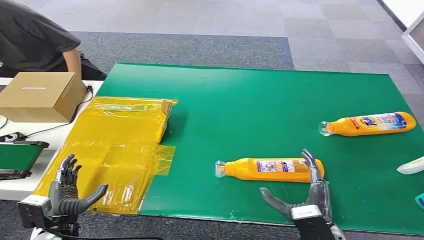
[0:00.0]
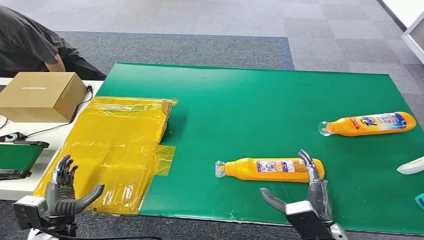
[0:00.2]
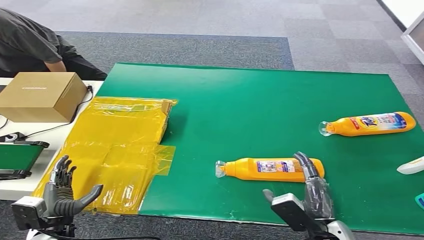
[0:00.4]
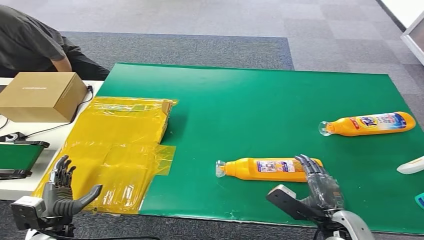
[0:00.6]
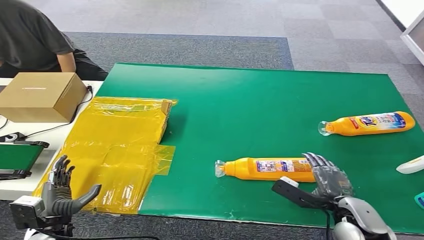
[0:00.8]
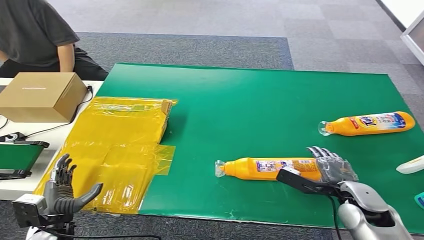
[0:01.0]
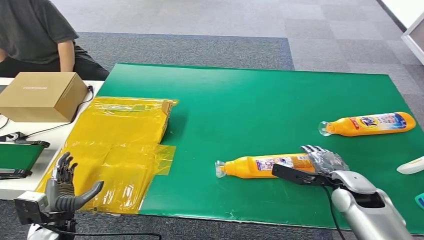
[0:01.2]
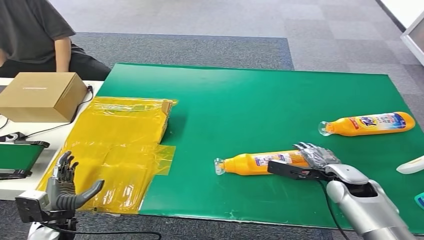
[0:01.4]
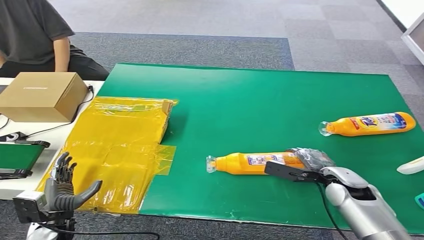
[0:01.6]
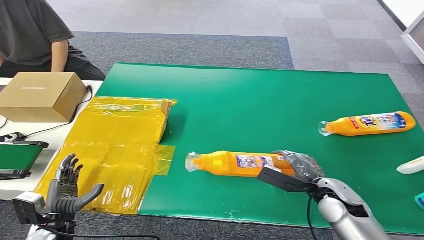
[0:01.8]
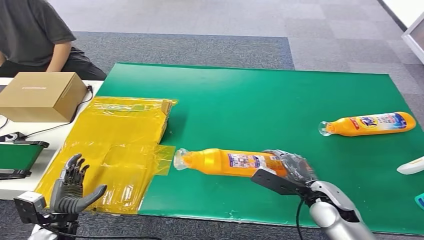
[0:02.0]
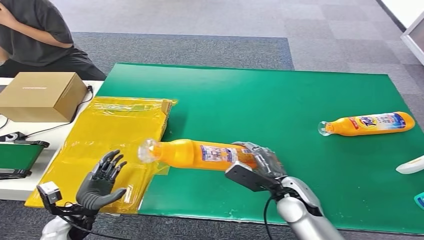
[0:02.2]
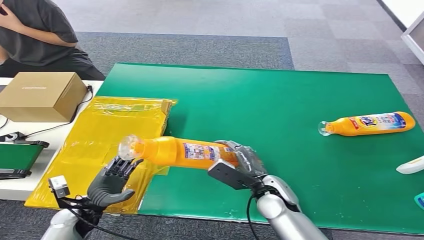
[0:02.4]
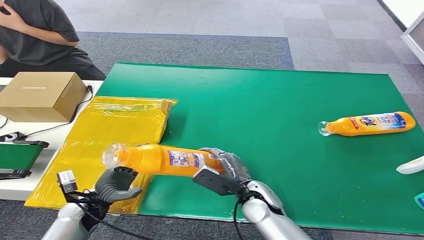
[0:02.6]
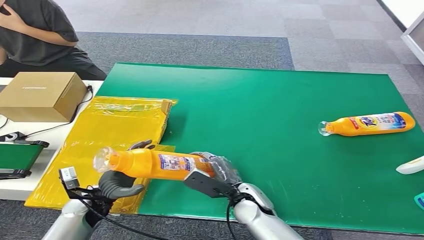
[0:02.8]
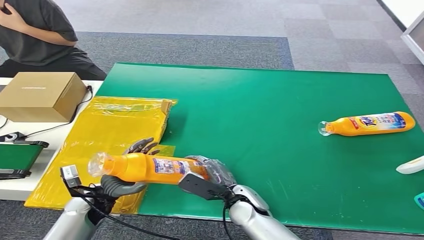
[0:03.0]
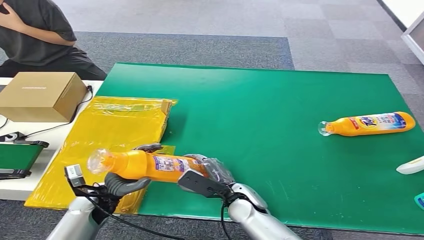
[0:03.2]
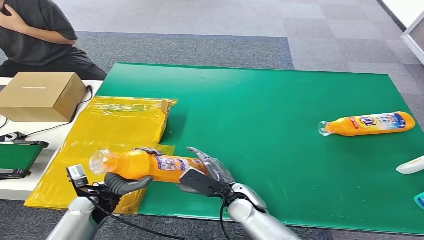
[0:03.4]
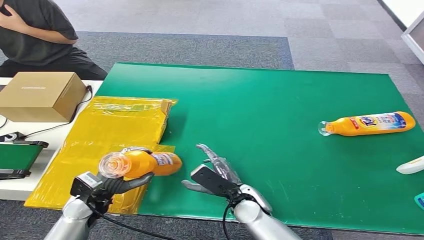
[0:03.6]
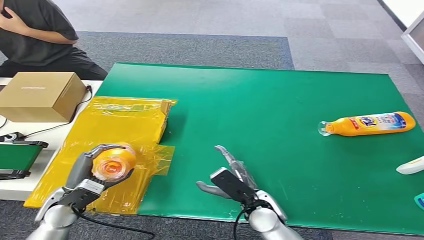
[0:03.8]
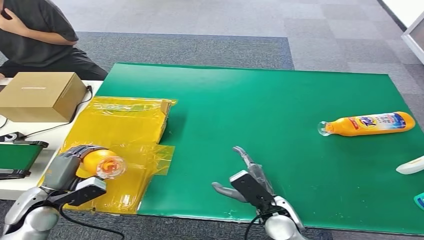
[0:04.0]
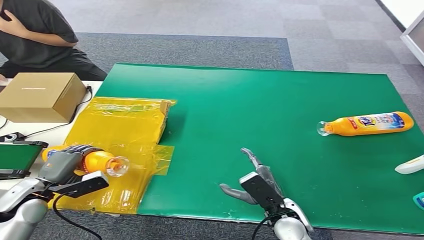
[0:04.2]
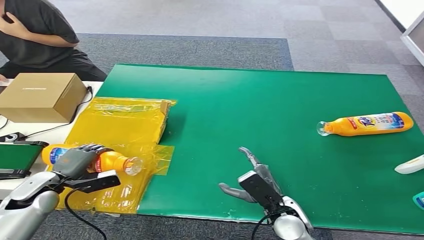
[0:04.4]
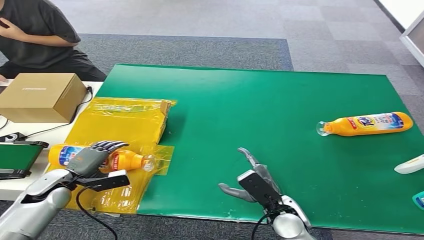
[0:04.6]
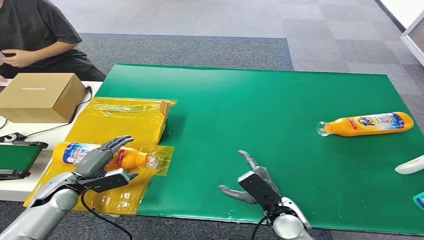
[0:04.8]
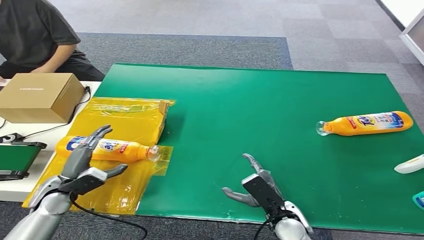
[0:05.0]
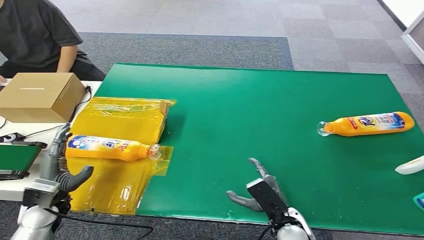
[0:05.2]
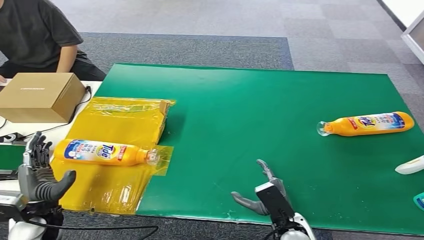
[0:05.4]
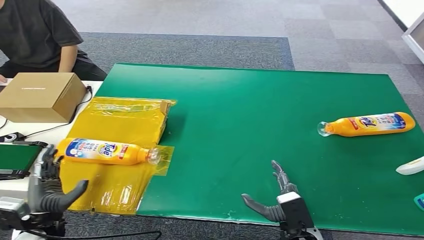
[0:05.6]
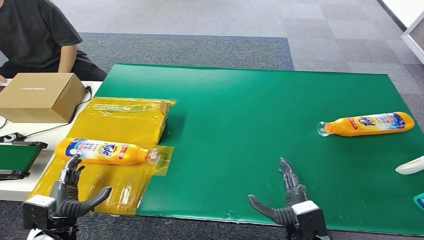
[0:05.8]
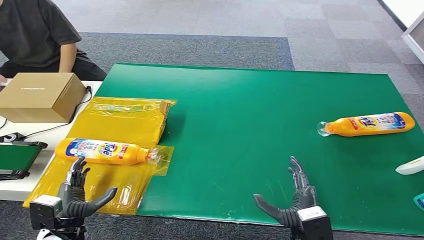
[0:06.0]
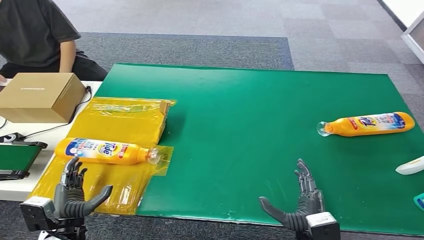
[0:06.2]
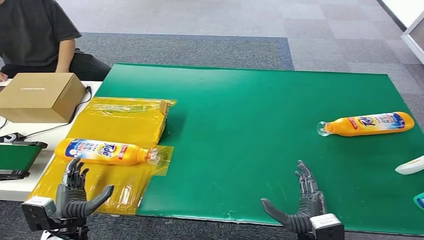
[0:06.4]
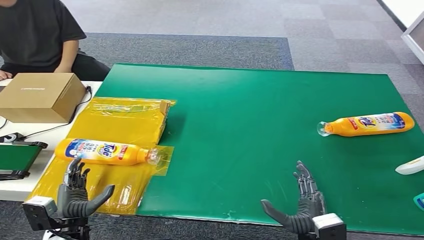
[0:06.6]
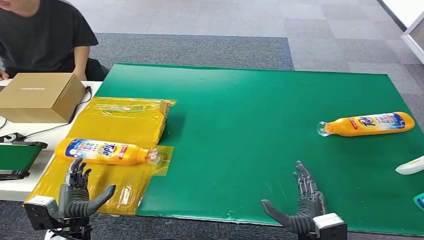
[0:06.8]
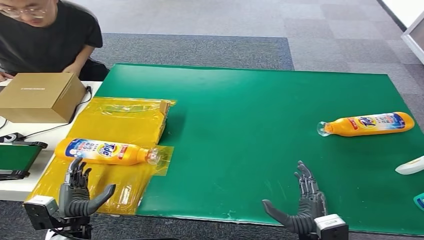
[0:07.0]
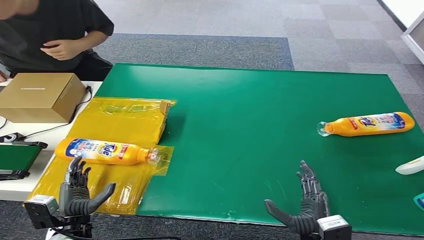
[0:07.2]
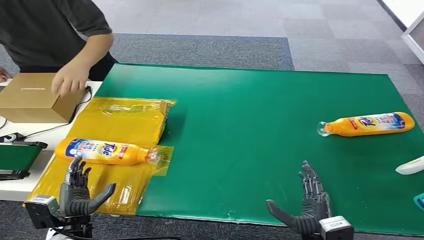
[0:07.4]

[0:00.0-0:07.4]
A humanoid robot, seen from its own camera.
Step, 0:00.0 to 0:02.2: Pick up the bottle from the table.
Step, 0:02.4 to 0:07.2: Turn the bottle to the front side.
0:03.0 to 0:04.4: The right hand travels to the right by roughly 10 cm; the left hand shifts some 15 cm to the left.
0:04.4 to 0:06.0: The right hand shifts approximately 5 cm backward, while the left hand shifts roughly 15 cm backward and to the right.
0:06.0 to 0:07.4: The hands stay close to where they were, moving slightly.
